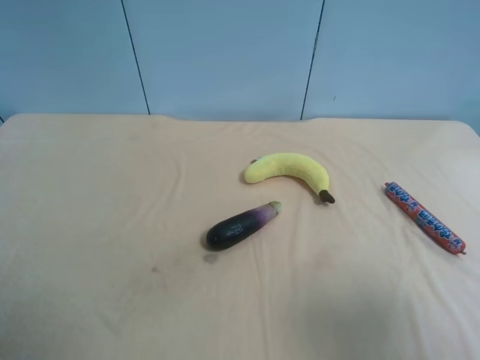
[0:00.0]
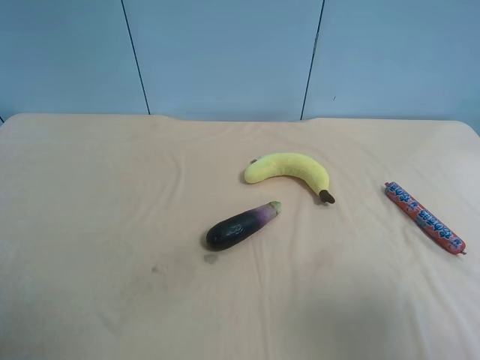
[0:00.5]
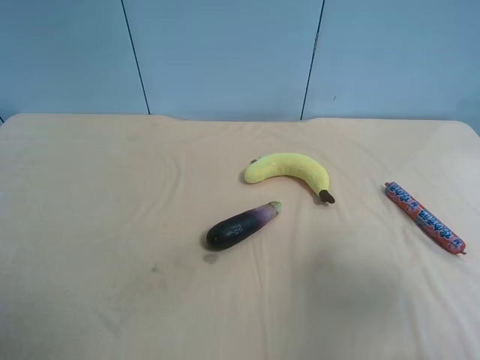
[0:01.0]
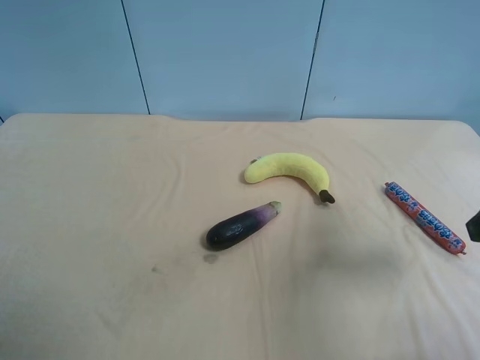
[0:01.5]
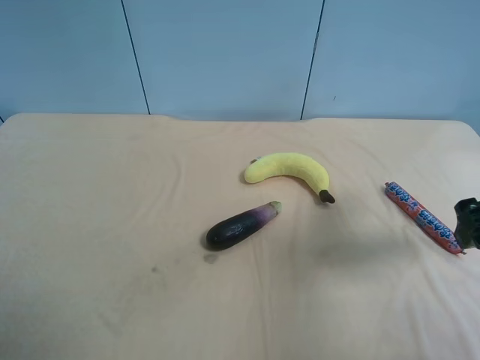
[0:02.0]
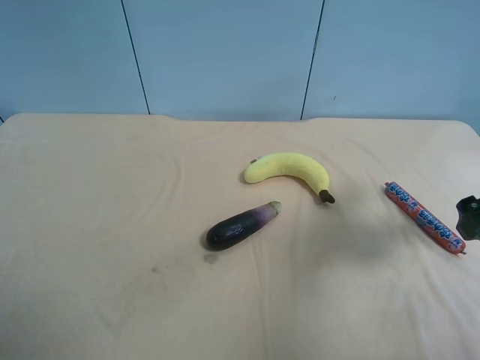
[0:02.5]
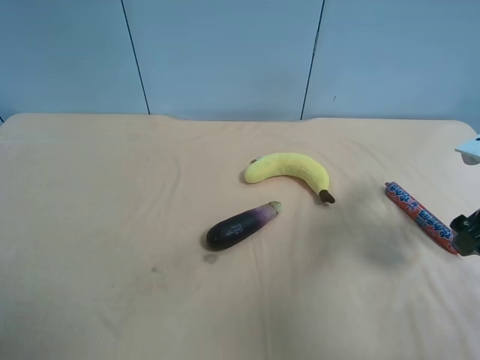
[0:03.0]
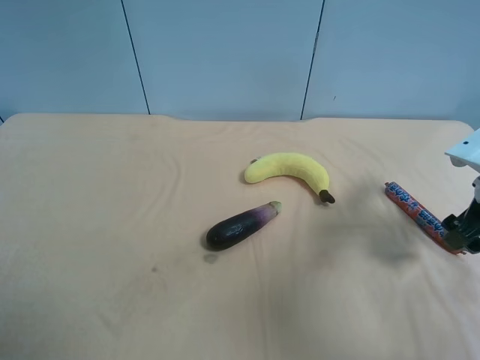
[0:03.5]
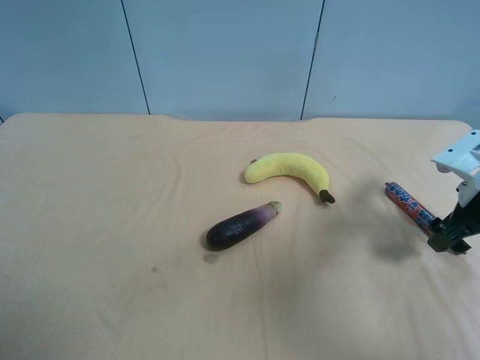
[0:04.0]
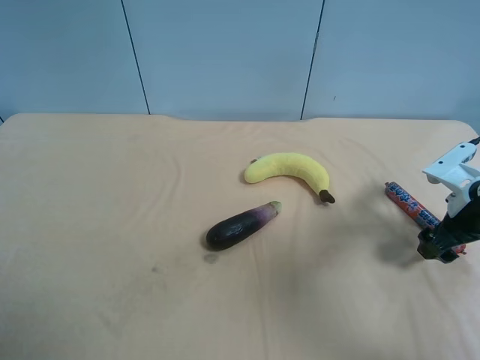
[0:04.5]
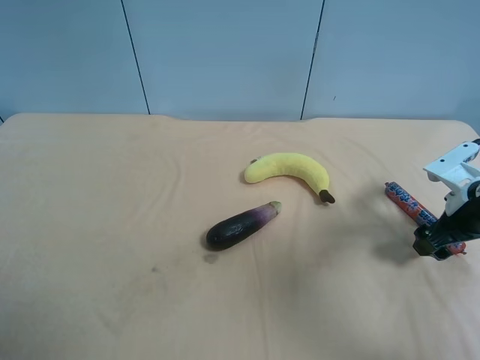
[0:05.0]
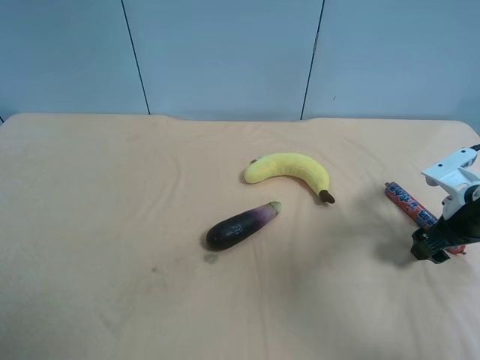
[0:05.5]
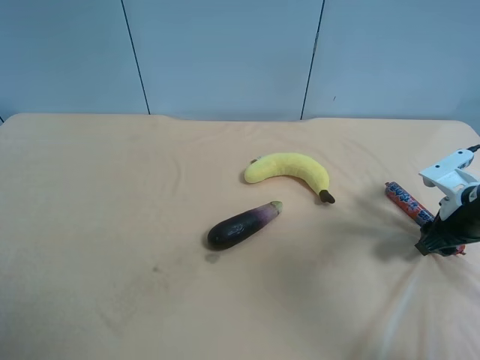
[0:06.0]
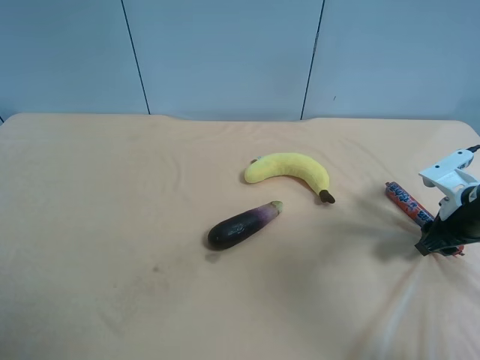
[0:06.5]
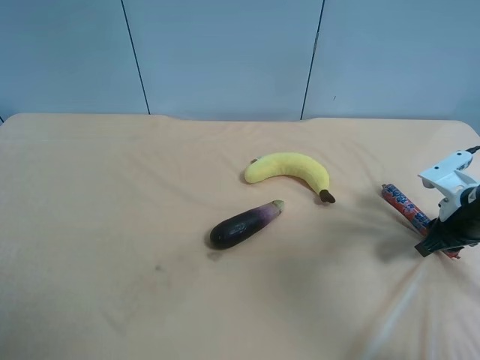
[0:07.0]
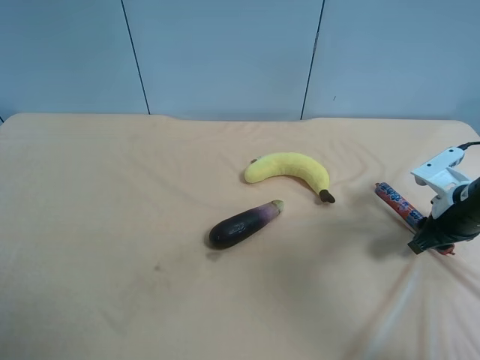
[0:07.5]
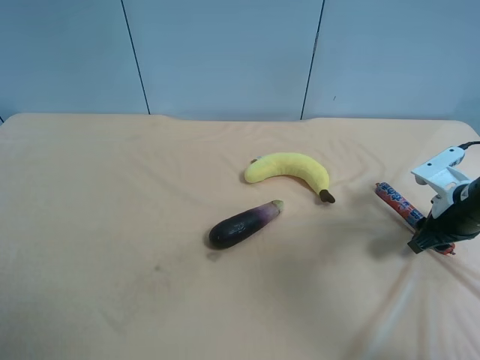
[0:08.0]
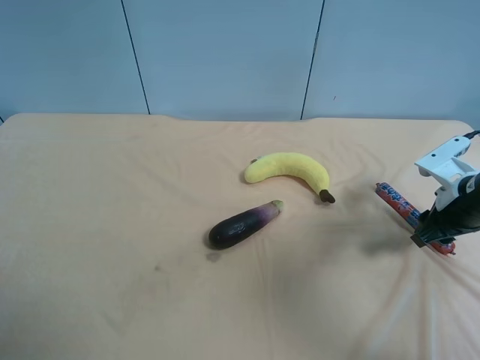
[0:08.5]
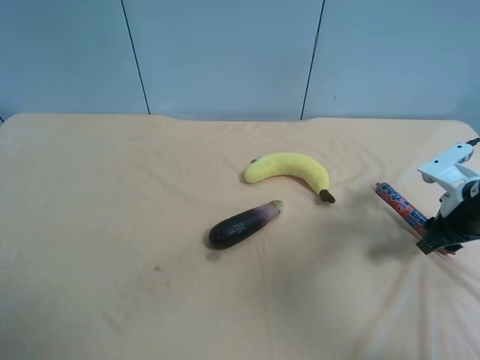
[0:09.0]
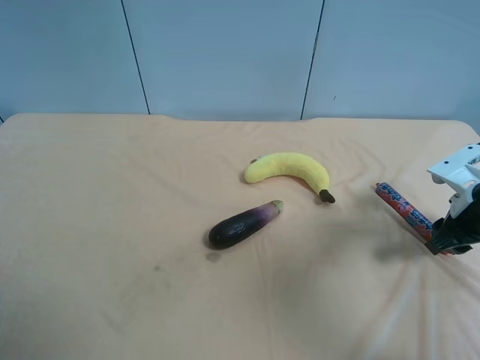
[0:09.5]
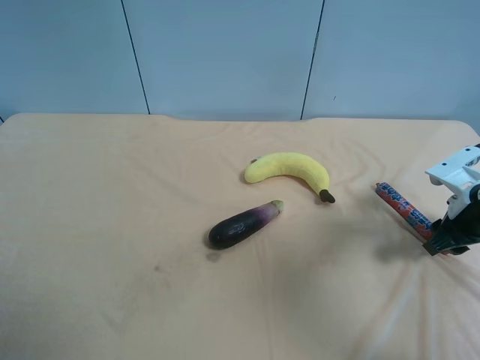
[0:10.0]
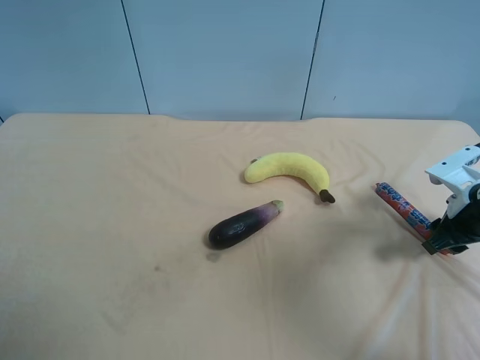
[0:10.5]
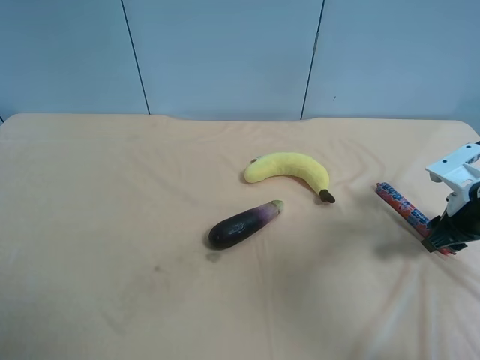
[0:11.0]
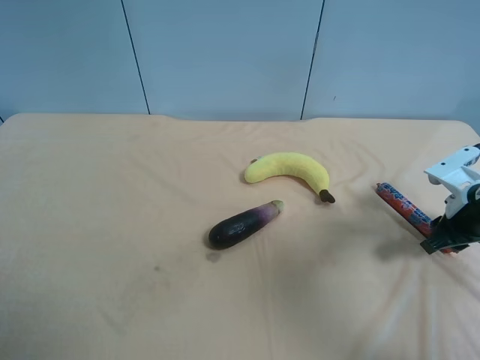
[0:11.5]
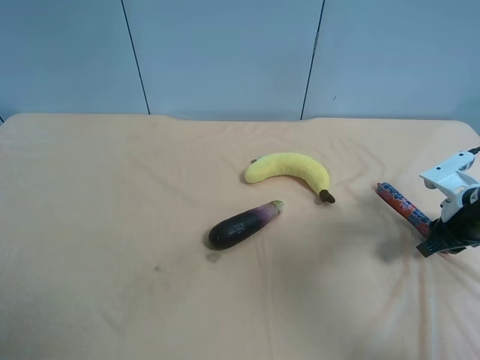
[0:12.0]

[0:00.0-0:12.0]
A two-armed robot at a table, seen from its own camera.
Task of the whole recording: use the right gripper to pick up the item and transfer it from the right gripper to the left gripper.
0:00.0 to 0:02.0: The right gripper moves forward, about 20 cm.
0:02.0 to 0:04.0: The right gripper shifts about 10 cm downward and forward.
0:04.0 to 0:06.0: The right gripper closes.
0:06.0 to 0:08.0: Both grippers stay about where they are.
0:08.0 to 0:12.0: There are only small adjustments of the grippers.

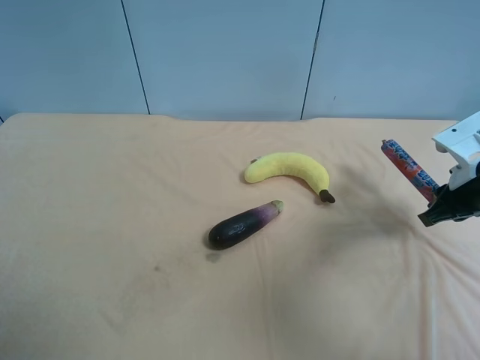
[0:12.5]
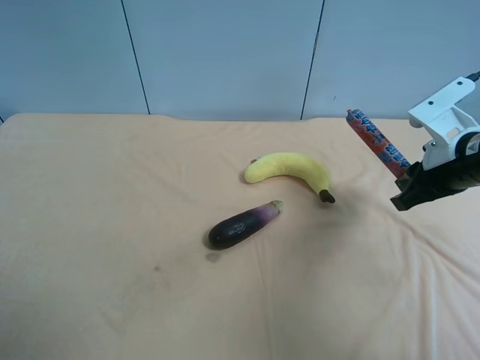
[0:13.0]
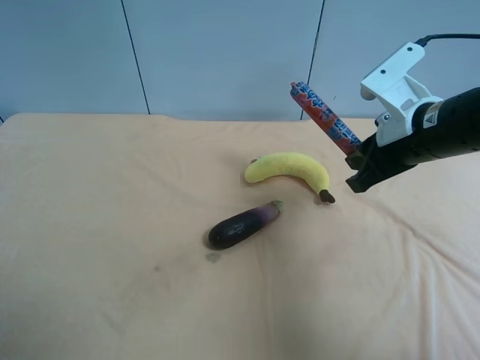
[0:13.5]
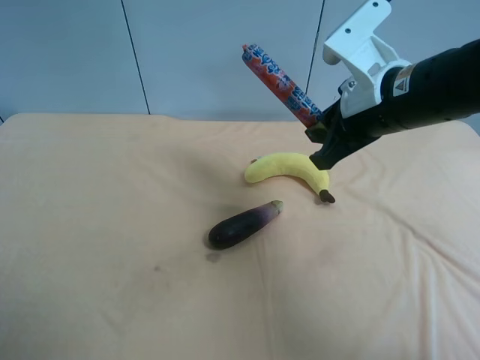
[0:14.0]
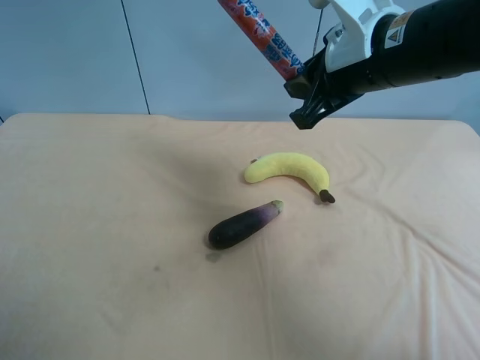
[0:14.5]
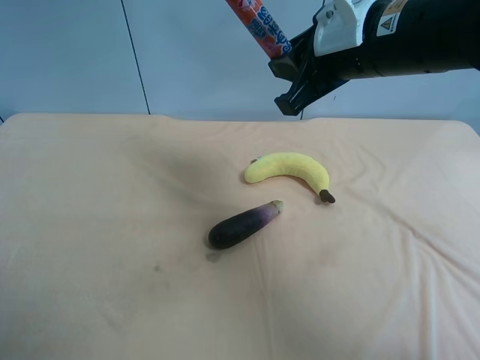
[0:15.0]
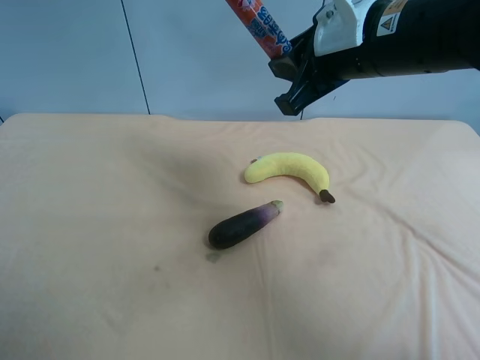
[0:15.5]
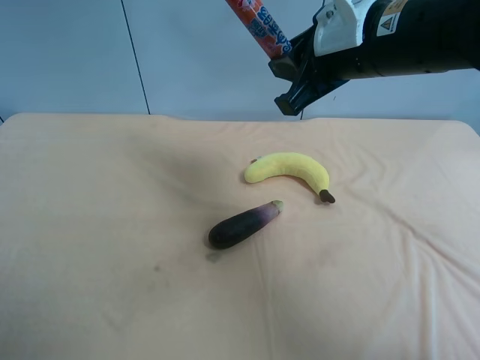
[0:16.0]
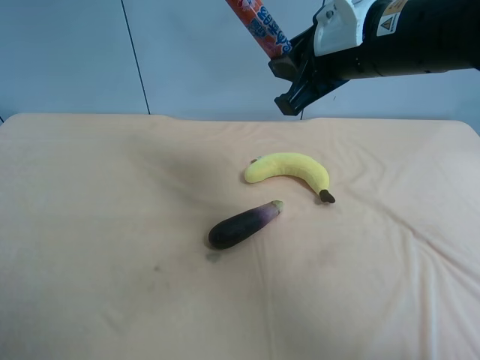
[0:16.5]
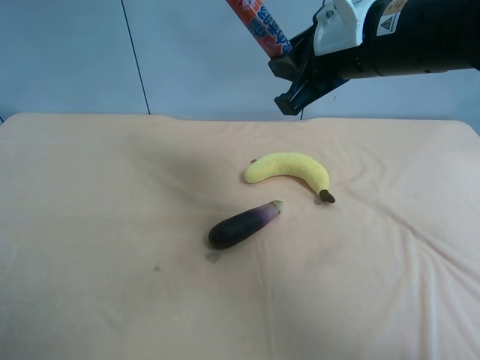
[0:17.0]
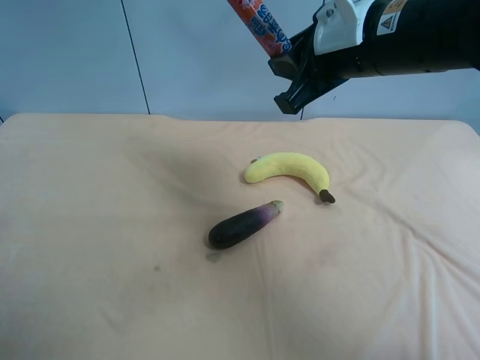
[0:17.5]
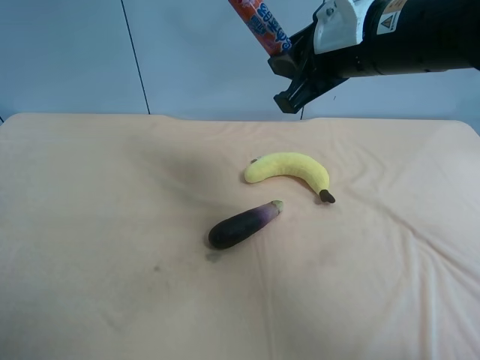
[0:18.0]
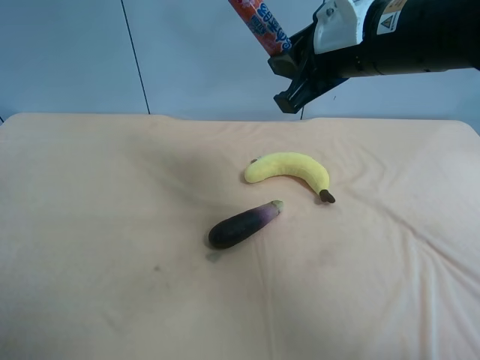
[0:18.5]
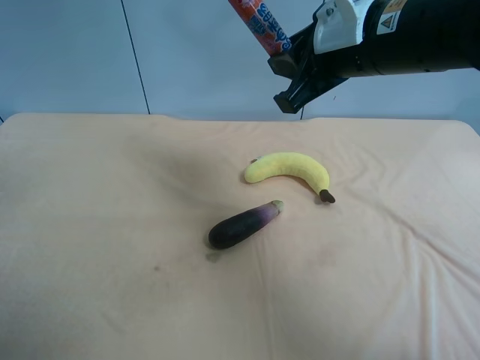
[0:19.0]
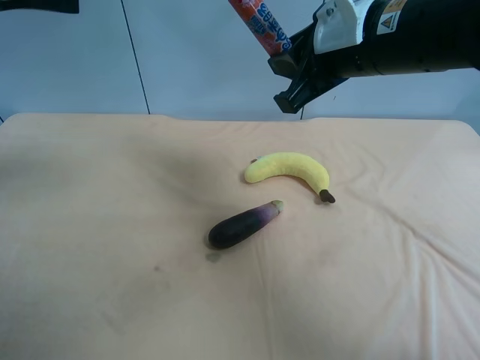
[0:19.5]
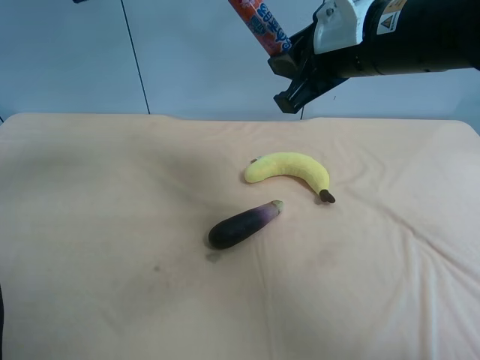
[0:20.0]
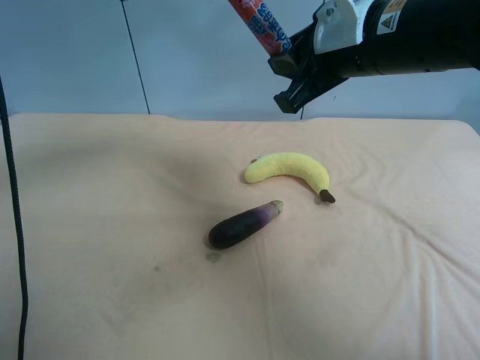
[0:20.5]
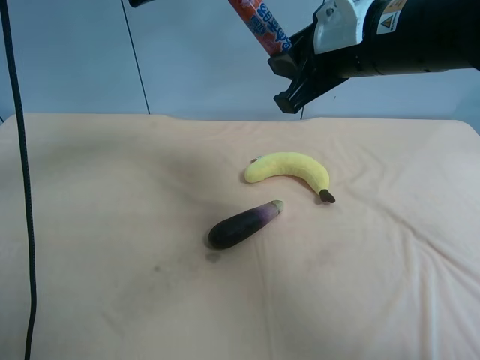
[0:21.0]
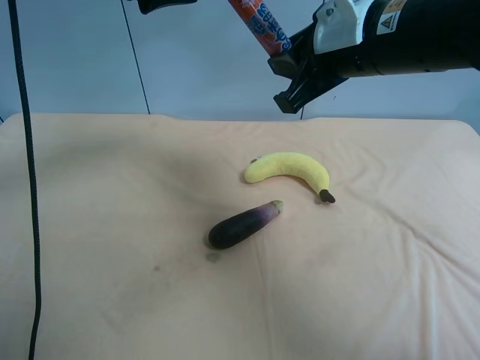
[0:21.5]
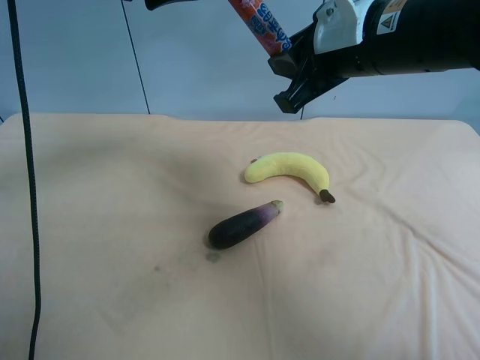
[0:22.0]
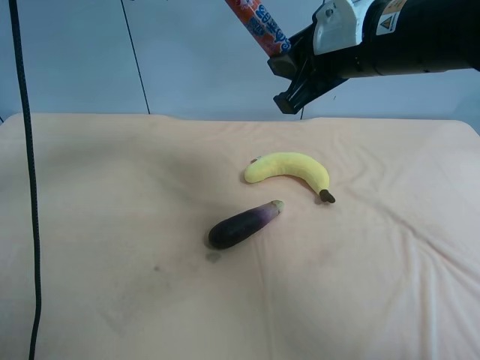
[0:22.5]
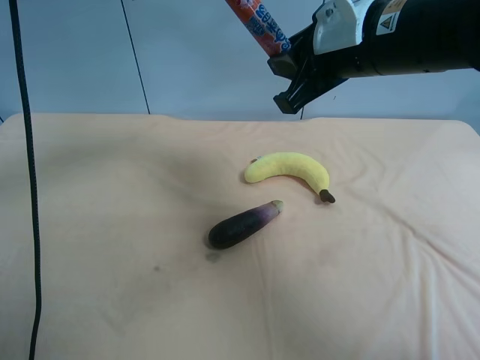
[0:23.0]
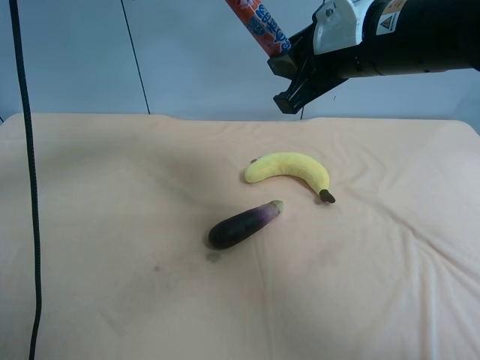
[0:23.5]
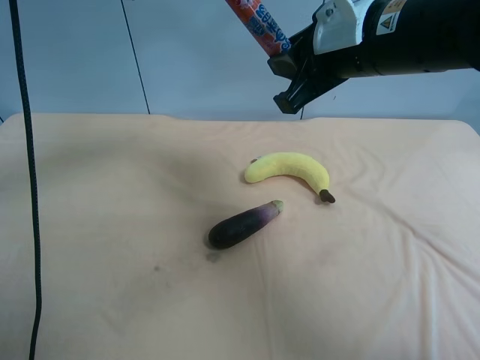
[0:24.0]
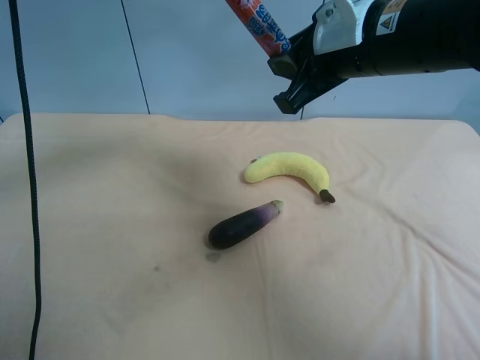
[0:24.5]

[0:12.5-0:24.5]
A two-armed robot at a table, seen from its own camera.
Task of the whole recording: use the right gripper to pick up the item and transfer it from the right gripper to the left gripper.
0:12.5 to 0:14.5: The right gripper heads to the left and upward, covering roughly 25 cm.
0:14.5 to 0:16.5: The grippers make only small movements.
0:18.5 to 0:20.5: The left gripper goes approximately 20 cm to the right and forward.
0:20.5 to 0:22.5: The left gripper closes up.
0:22.5 to 0:24.5: The two grippers keep their place.

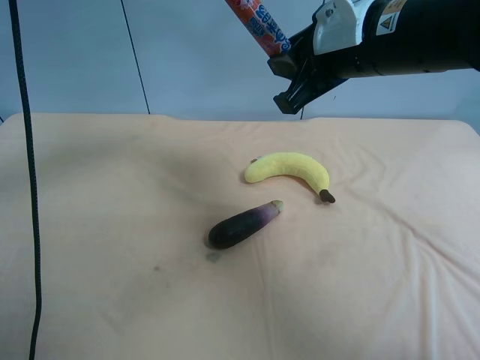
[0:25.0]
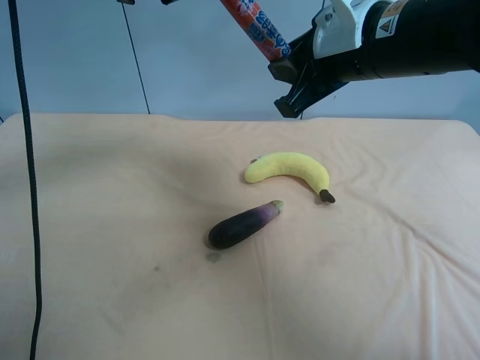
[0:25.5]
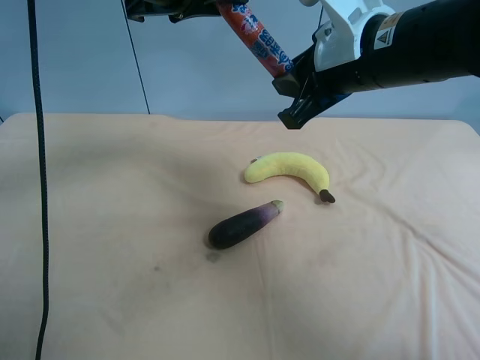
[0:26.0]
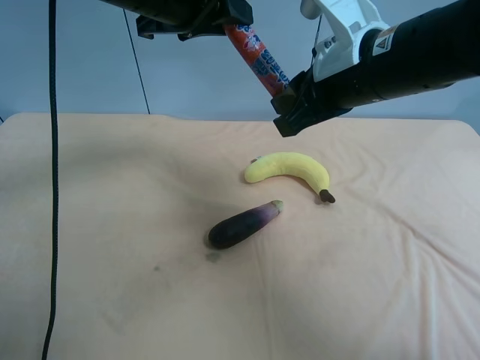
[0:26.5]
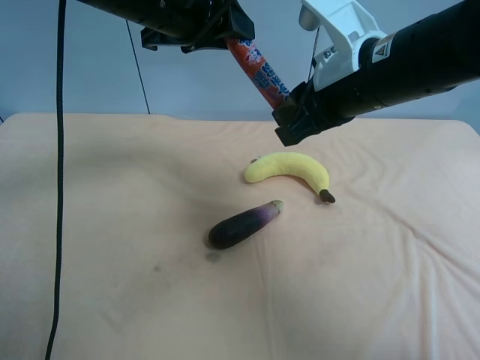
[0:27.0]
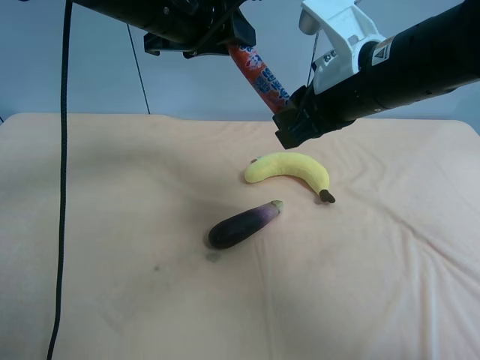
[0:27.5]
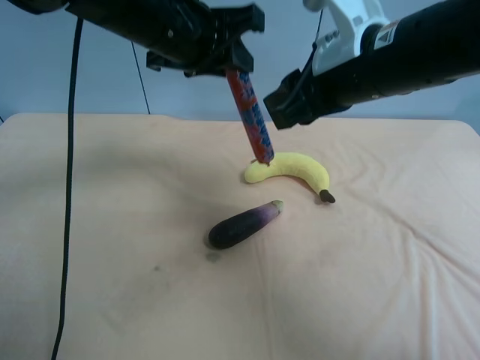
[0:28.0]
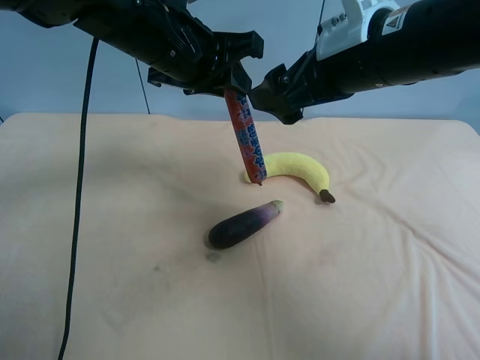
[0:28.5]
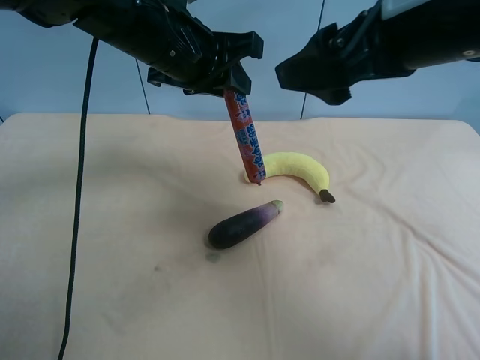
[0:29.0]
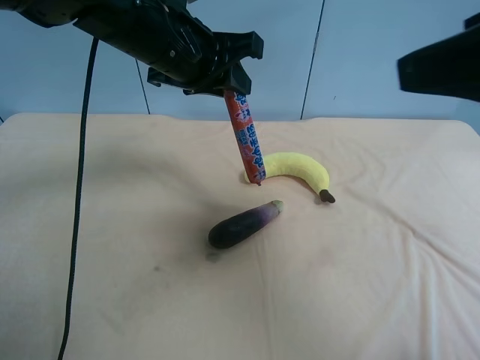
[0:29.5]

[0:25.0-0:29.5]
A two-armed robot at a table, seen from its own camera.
Task of the whole recording: use the right gripper to pick up the item and transfer it from the right gripper to the left gripper.
0:25.0 to 0:27.0: The left gripper ends up about 5 cm from where it was.
0:27.0 to 0:29.5: The right gripper heads backward, upward and to the right, covering about 20 cm, and opens.
